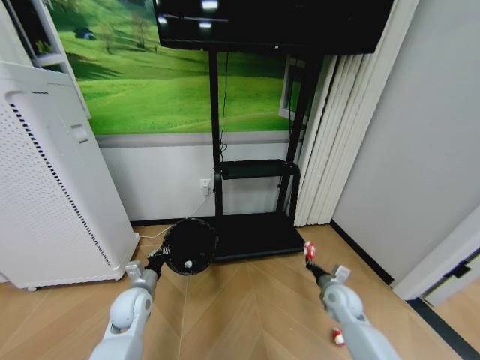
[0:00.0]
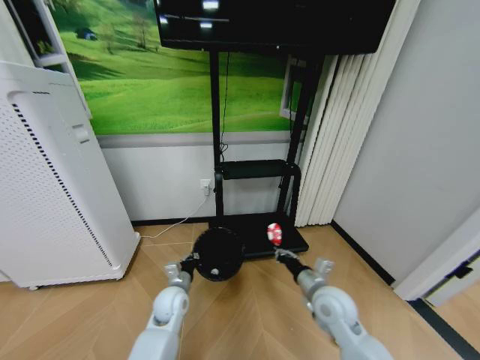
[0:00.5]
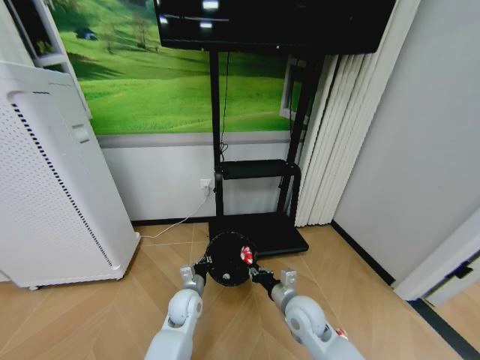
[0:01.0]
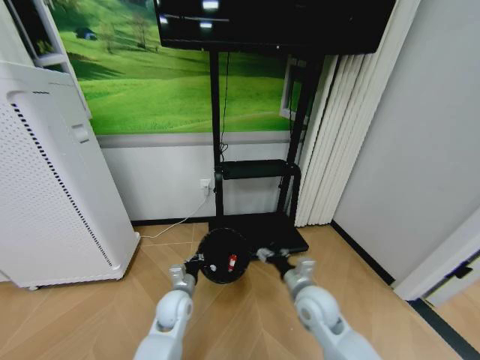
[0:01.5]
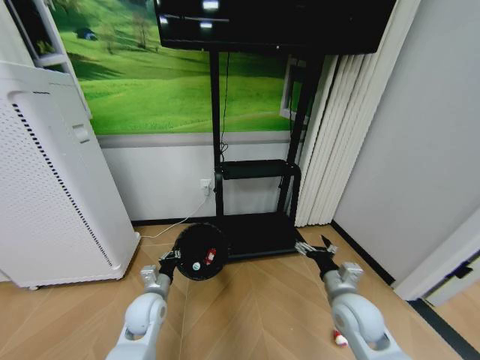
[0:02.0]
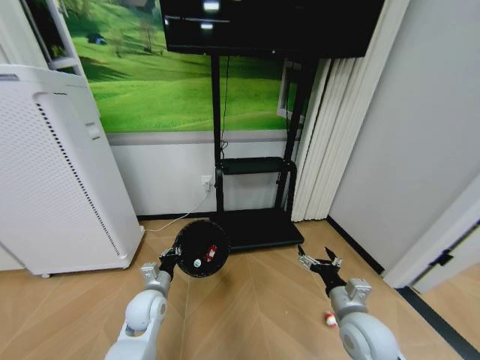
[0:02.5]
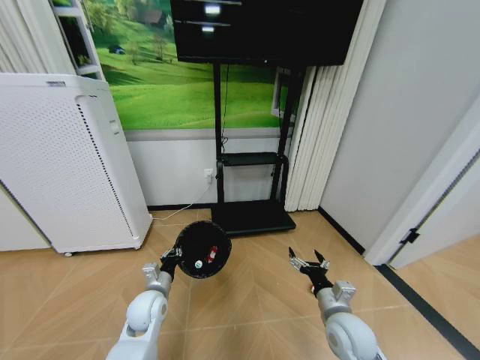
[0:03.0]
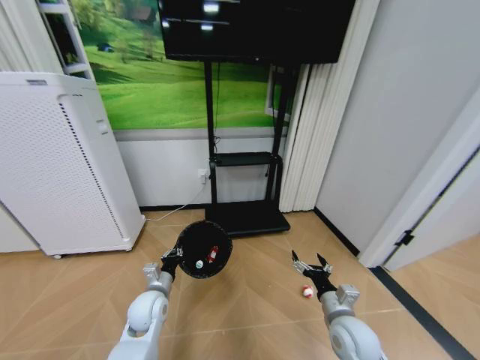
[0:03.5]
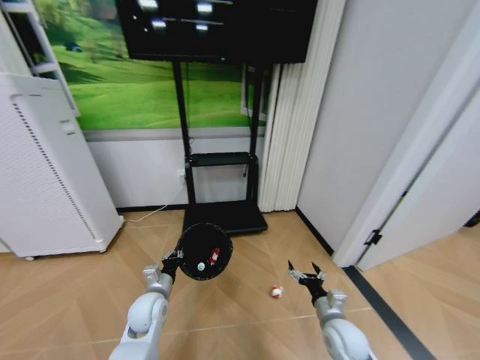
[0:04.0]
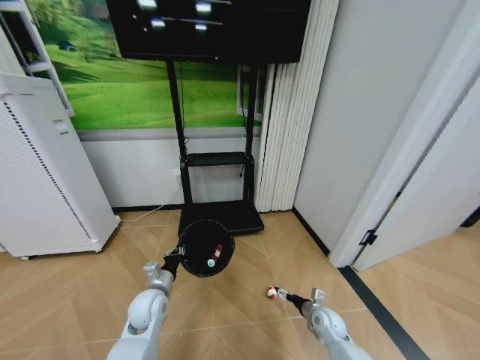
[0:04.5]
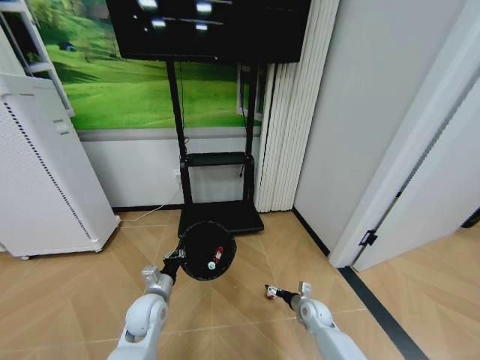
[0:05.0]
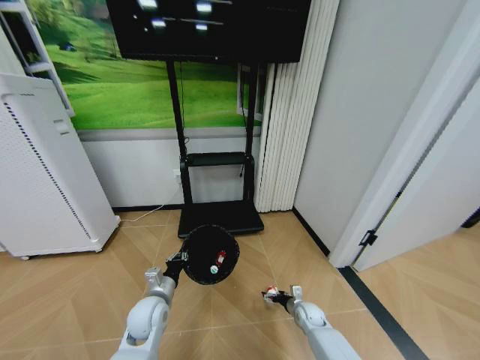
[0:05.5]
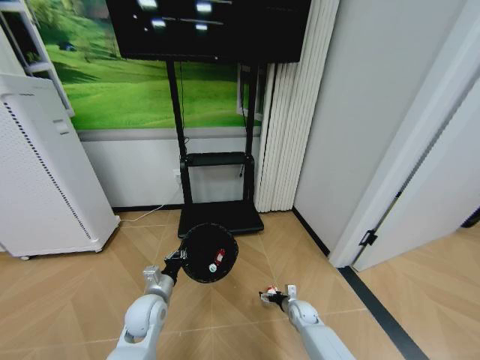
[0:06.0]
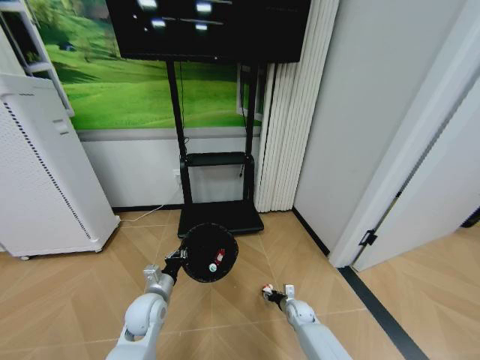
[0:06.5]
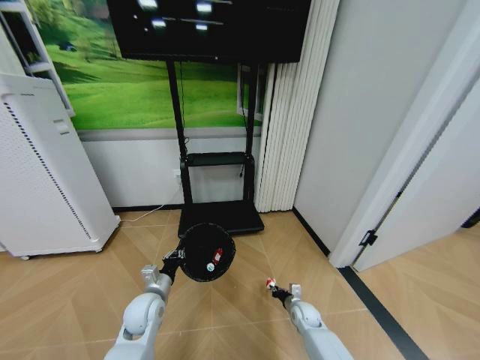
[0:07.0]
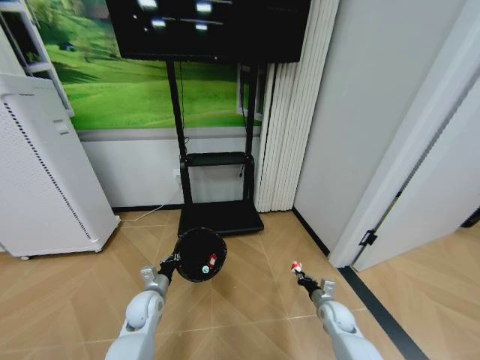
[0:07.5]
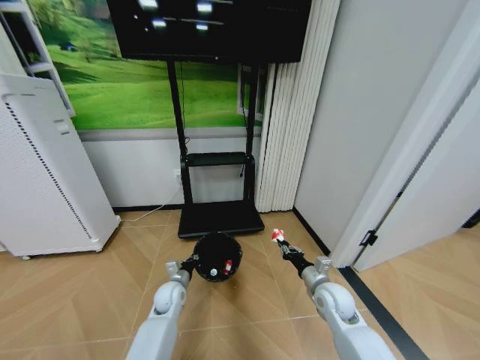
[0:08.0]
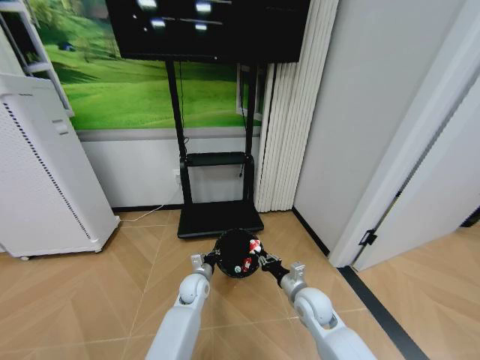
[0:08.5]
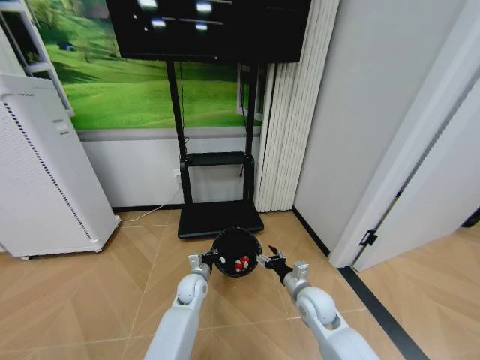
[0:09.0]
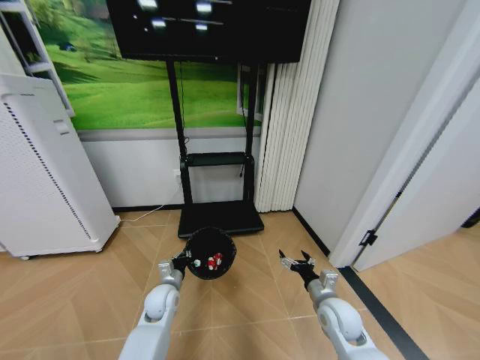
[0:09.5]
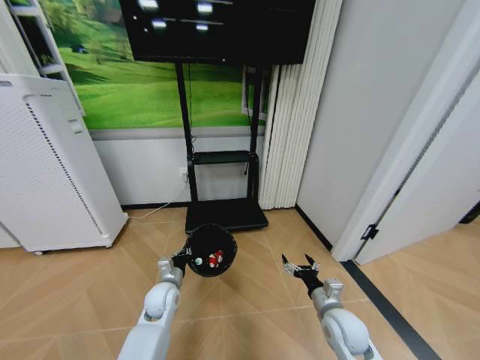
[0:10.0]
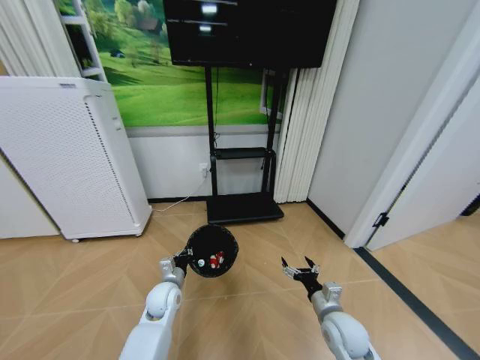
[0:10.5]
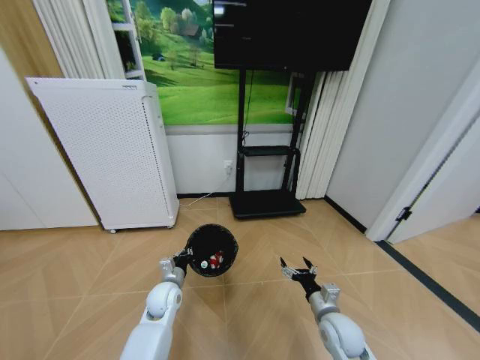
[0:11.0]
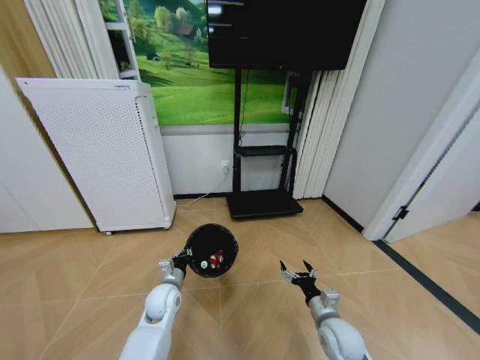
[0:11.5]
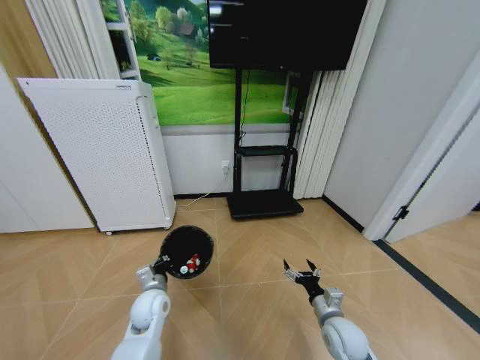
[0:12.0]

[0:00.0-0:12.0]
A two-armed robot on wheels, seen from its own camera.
Task of the whole recording: Pick up the trash bin and place the garbage on the floor into it.
0:00.0 to 0:02.0: The left gripper goes to the right and returns, some 15 cm each way; the right gripper moves upward, backward and to the left, some 15 cm, and opens.
0:02.0 to 0:04.0: The right gripper is displaced downward by about 10 cm.
0:04.0 to 0:06.0: The right gripper moves downward and forward, approximately 20 cm.
0:06.0 to 0:08.0: The left gripper goes about 10 cm downward and forward; the right gripper travels upward by roughly 20 cm, and closes.
0:08.0 to 0:10.0: The left gripper travels to the right and back again, approximately 10 cm each way, while the right gripper travels backward by roughly 5 cm, and opens its fingers.

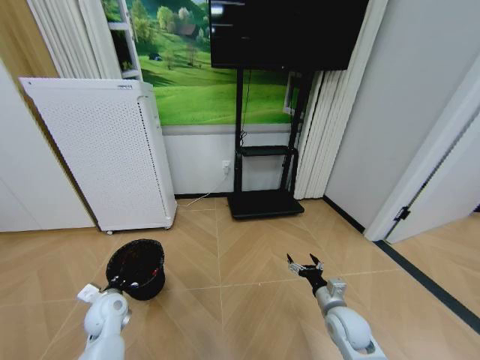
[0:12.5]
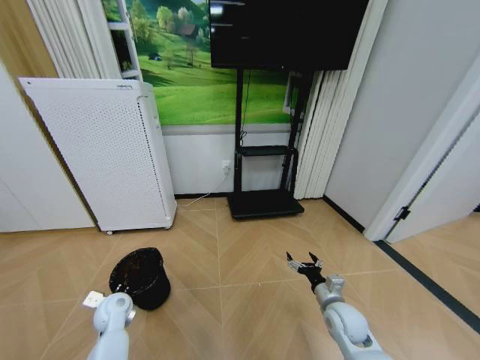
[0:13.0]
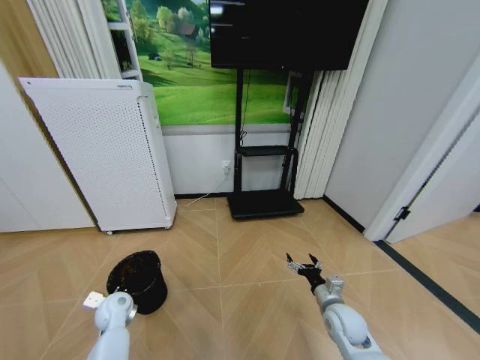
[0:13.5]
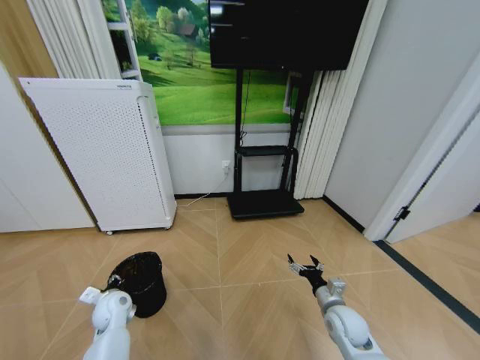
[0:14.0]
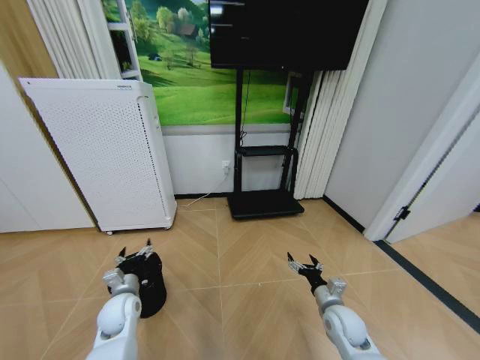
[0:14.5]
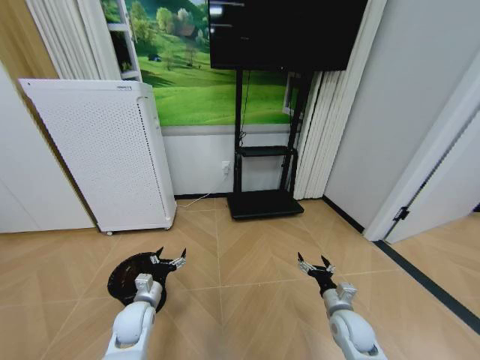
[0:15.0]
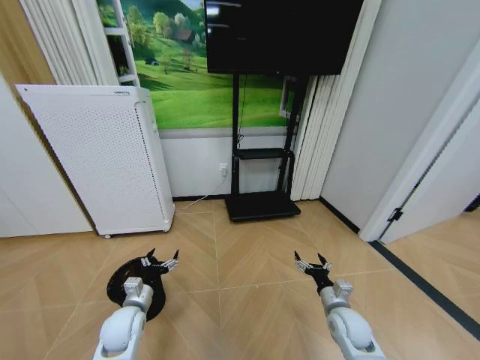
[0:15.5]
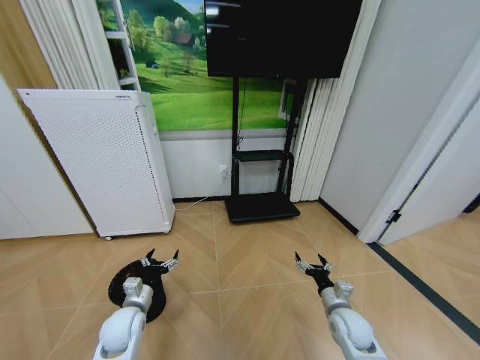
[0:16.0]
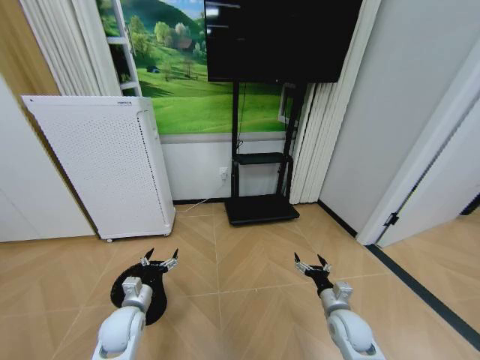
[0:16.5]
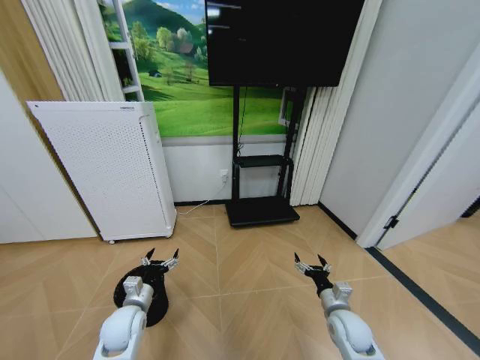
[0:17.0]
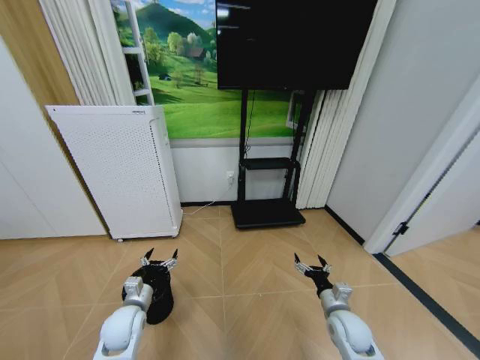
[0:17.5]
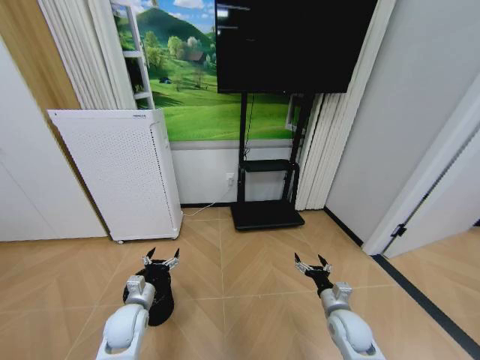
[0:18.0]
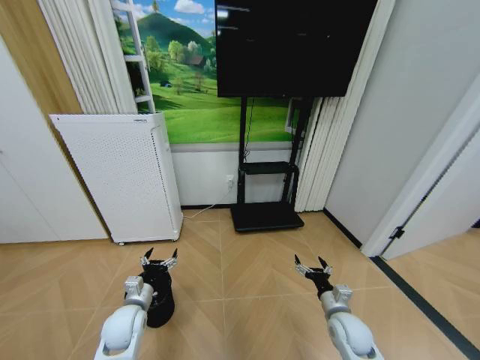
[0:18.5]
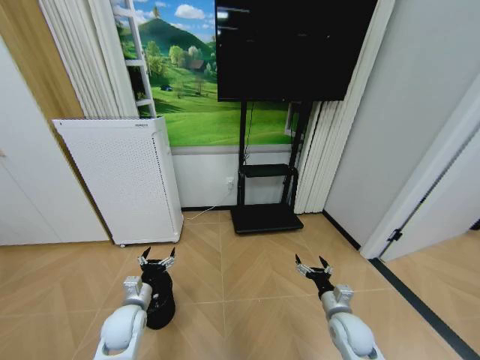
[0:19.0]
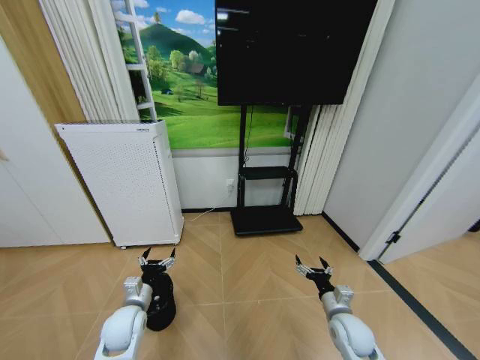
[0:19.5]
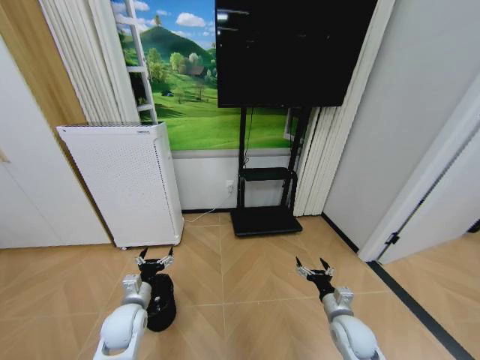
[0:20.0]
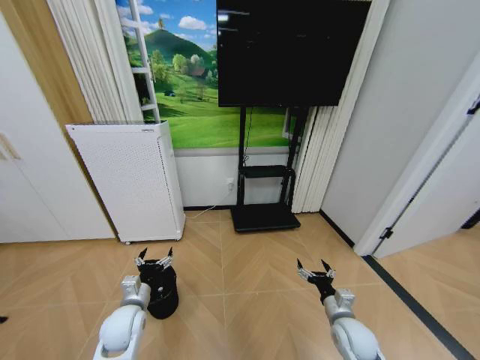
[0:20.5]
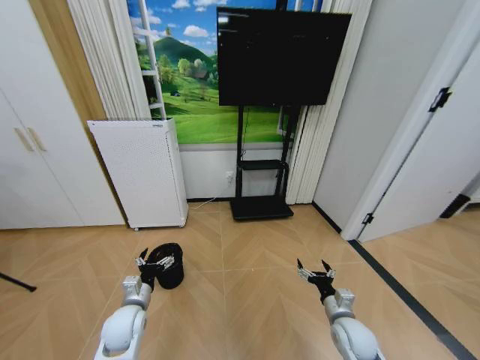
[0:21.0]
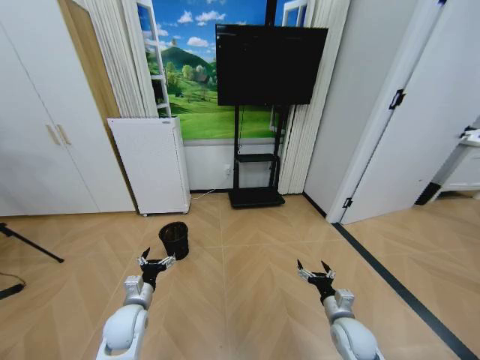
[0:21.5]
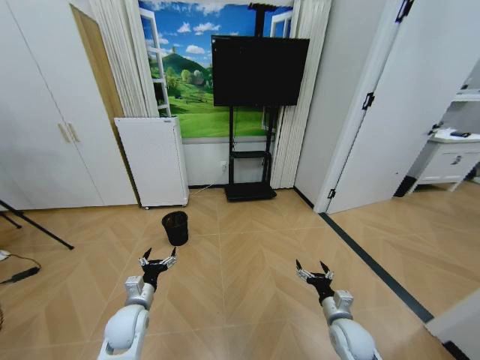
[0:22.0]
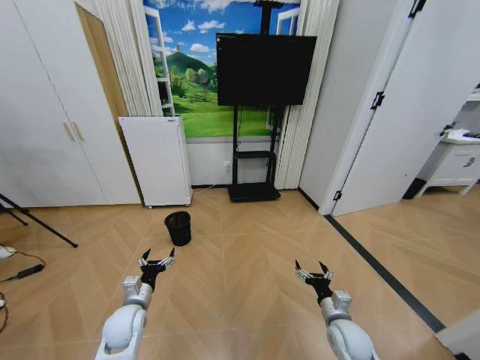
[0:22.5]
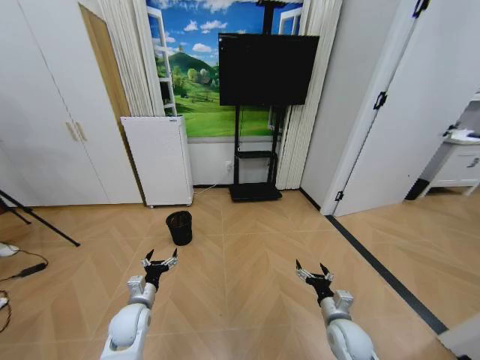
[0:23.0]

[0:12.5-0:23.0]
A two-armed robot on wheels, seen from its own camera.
Task of the whole recording: Pick up the trash bin and place the garbage on the floor into it.
0:12.5 to 0:14.5: The left gripper opens.

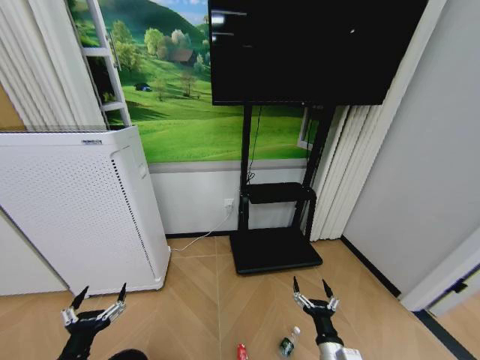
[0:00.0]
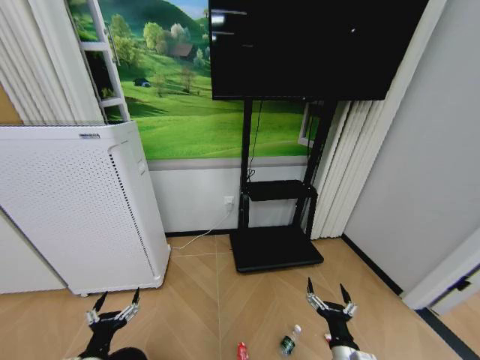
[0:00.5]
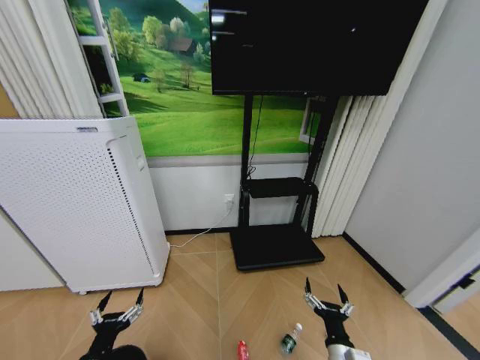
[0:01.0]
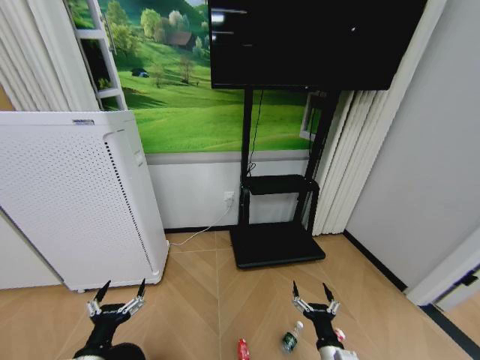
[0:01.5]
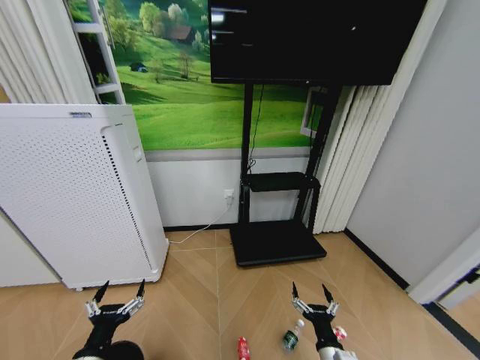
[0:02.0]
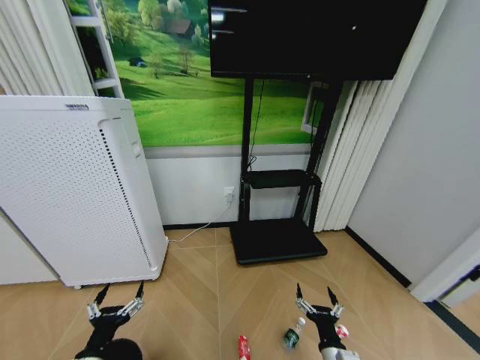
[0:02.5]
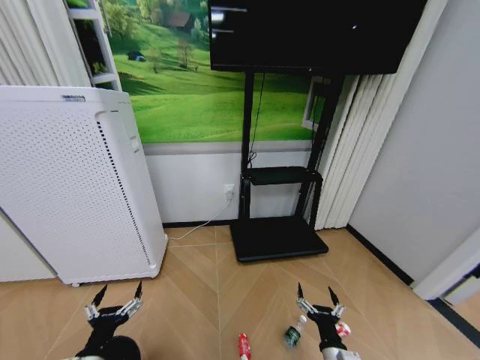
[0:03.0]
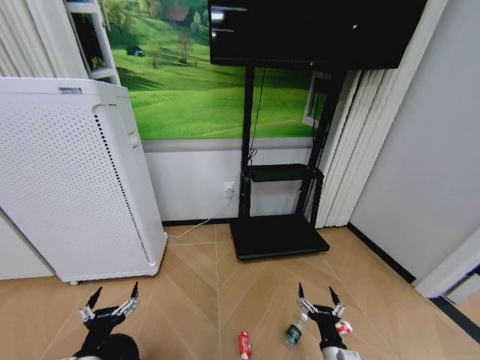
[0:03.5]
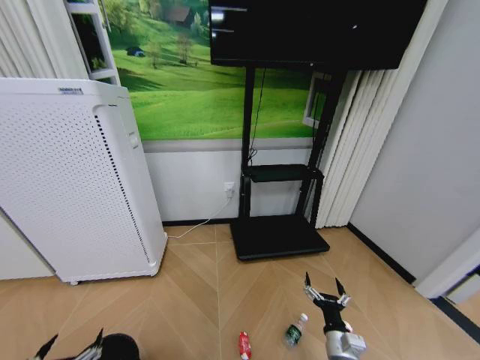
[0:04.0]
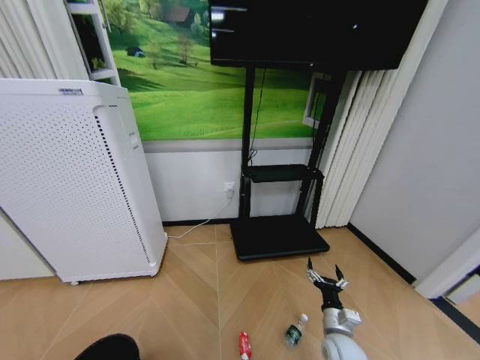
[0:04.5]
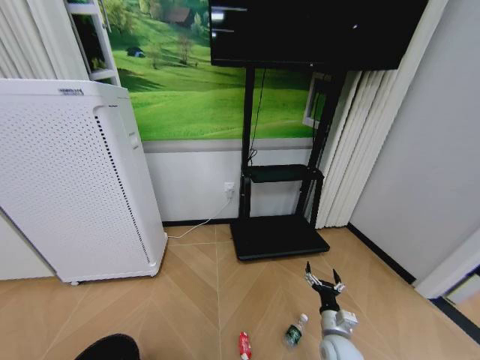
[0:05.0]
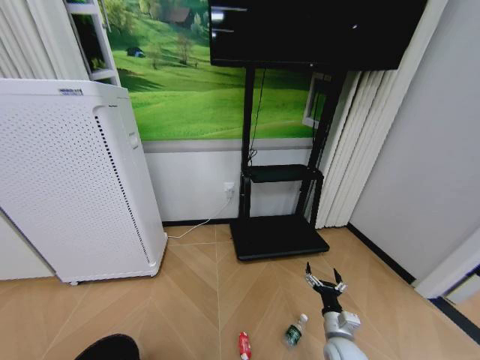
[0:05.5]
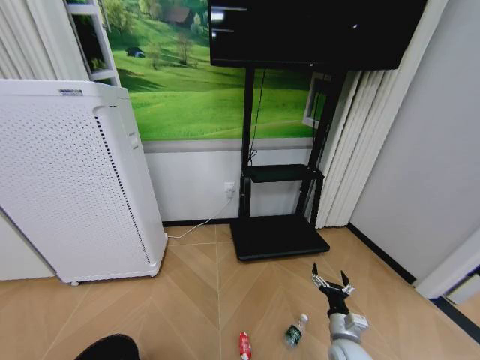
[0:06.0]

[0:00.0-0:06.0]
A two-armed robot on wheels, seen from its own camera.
Task of the whole recording: Pick up the trash bin and place the garbage on the floor into it.
0:02.0 to 0:04.0: The left gripper heads backward, covering some 5 cm.
0:04.0 to 0:06.0: The left gripper travels downward by approximately 10 cm, while the right gripper moves about 5 cm.
